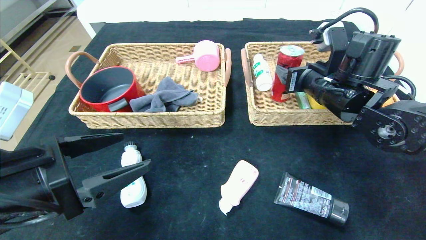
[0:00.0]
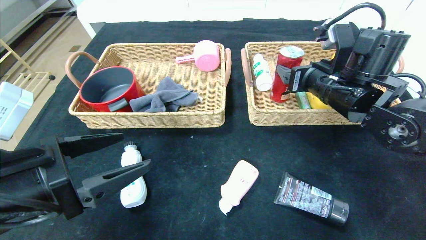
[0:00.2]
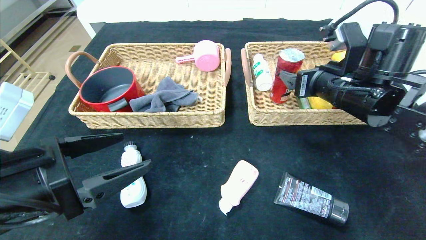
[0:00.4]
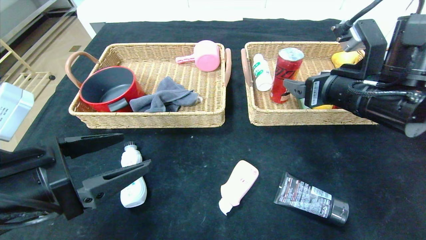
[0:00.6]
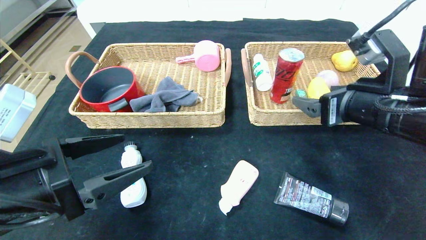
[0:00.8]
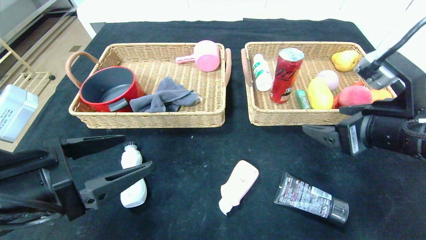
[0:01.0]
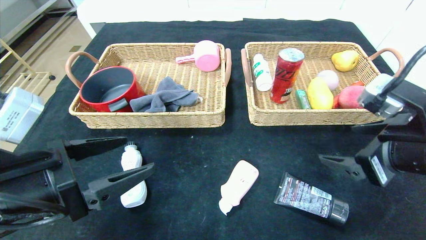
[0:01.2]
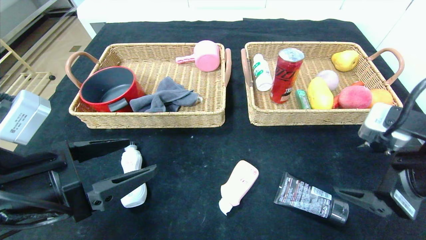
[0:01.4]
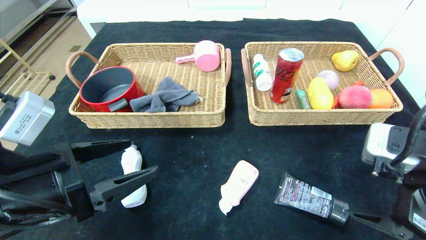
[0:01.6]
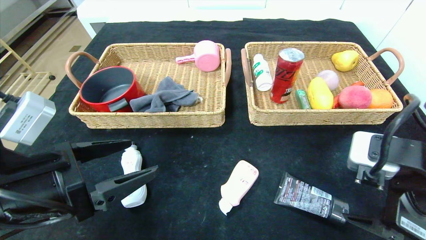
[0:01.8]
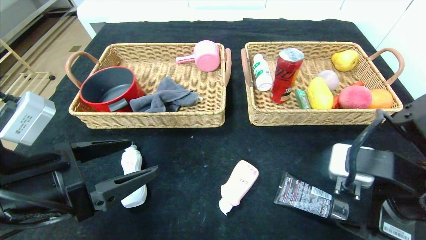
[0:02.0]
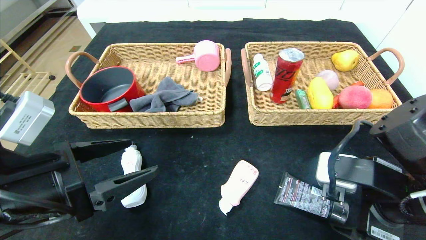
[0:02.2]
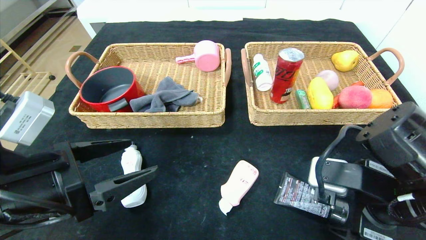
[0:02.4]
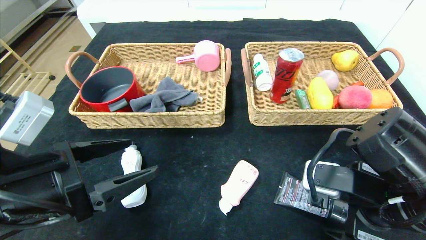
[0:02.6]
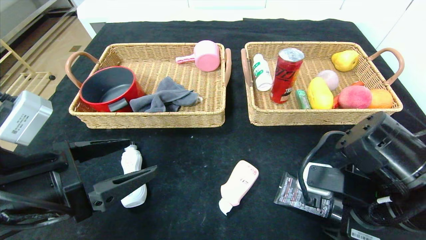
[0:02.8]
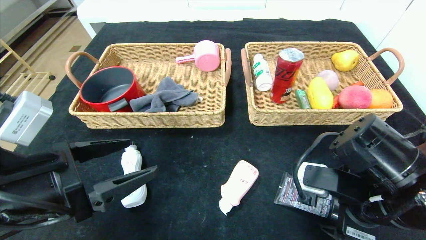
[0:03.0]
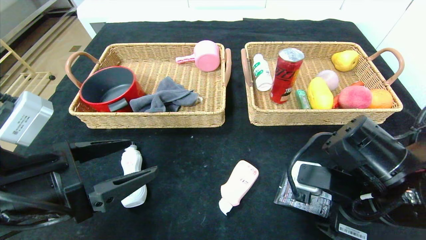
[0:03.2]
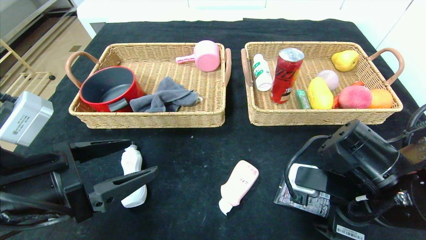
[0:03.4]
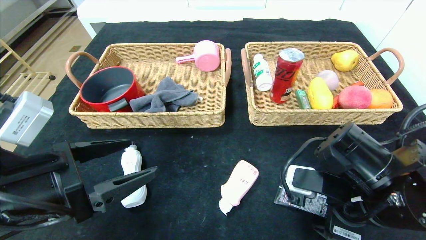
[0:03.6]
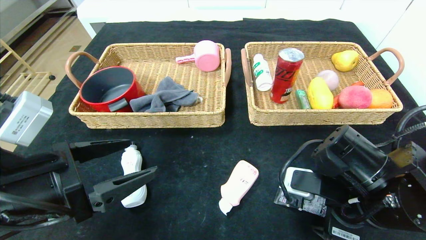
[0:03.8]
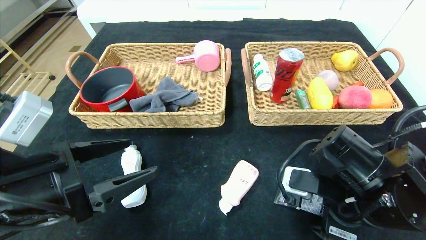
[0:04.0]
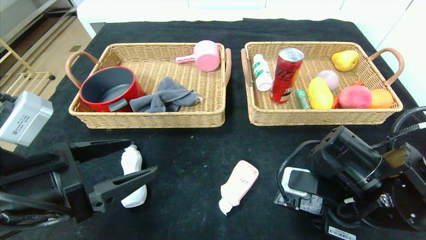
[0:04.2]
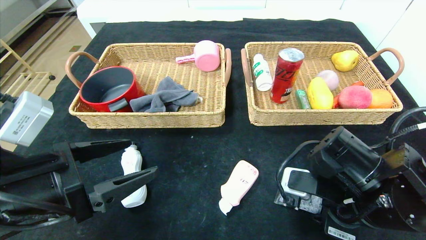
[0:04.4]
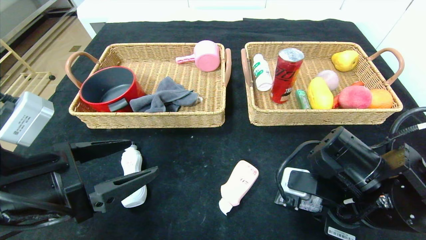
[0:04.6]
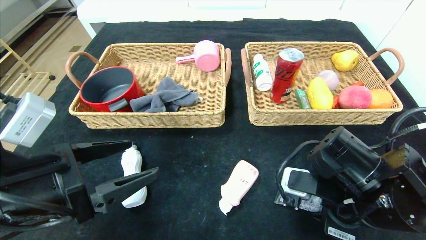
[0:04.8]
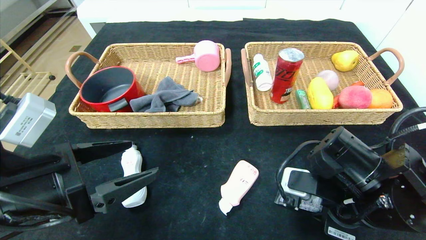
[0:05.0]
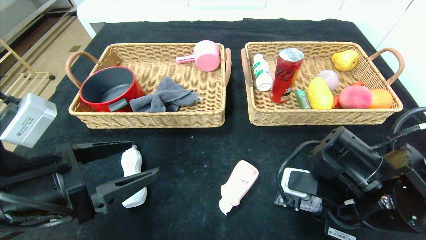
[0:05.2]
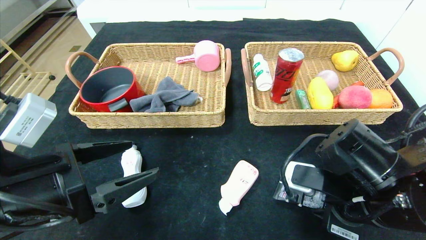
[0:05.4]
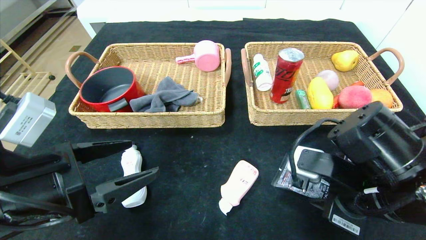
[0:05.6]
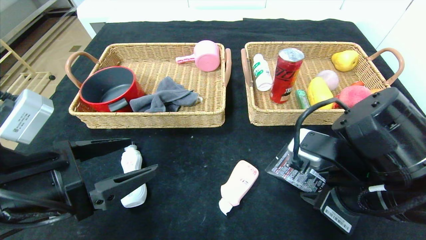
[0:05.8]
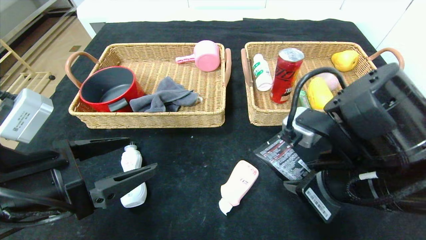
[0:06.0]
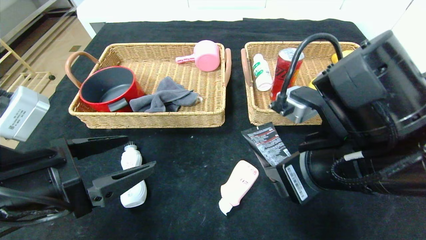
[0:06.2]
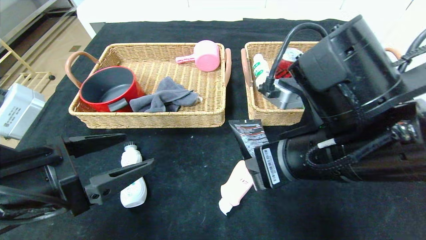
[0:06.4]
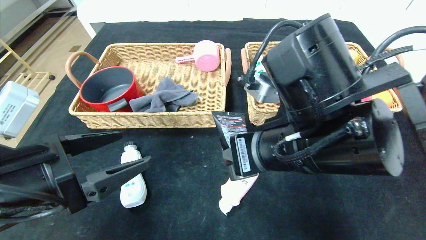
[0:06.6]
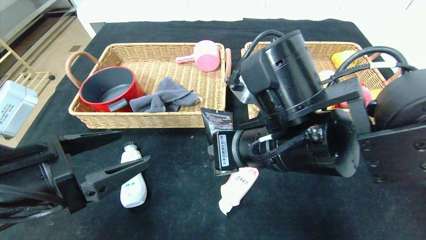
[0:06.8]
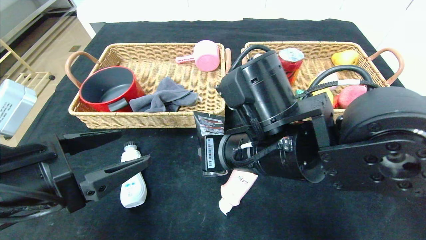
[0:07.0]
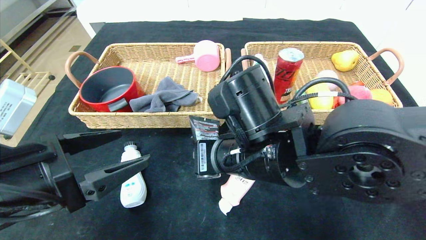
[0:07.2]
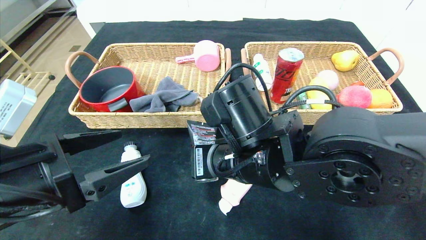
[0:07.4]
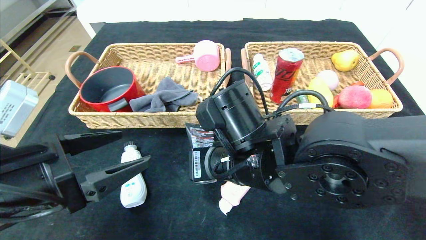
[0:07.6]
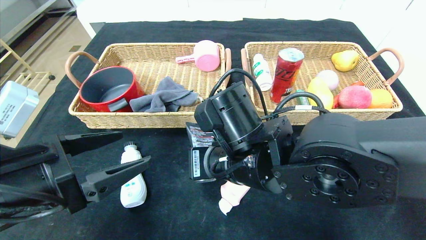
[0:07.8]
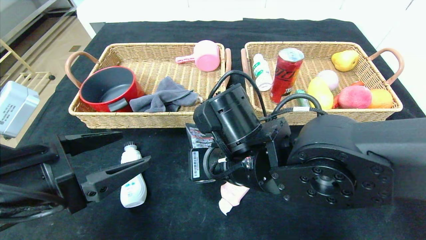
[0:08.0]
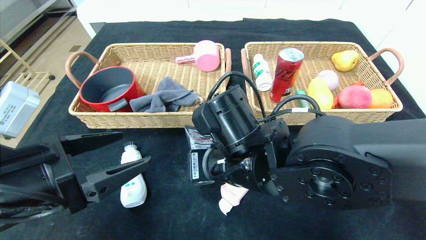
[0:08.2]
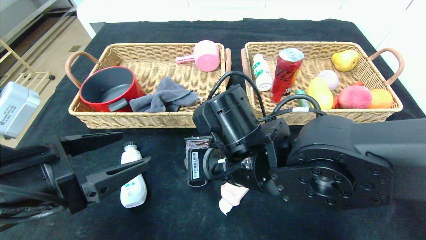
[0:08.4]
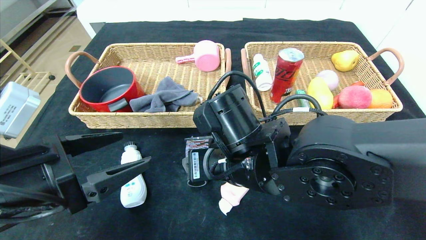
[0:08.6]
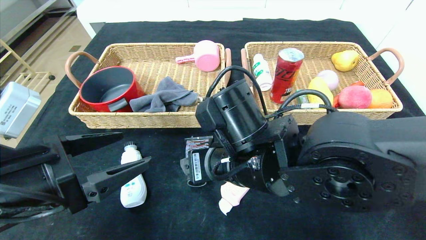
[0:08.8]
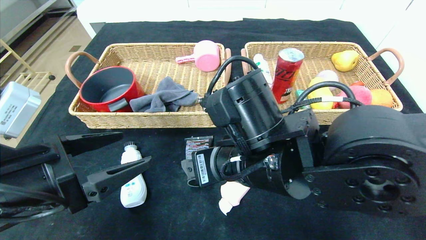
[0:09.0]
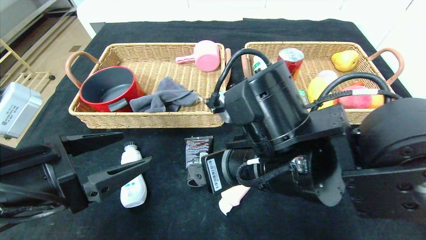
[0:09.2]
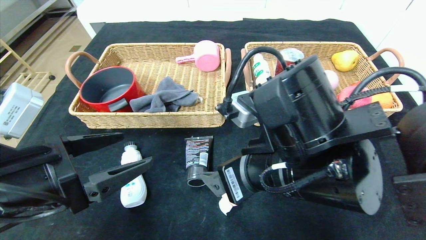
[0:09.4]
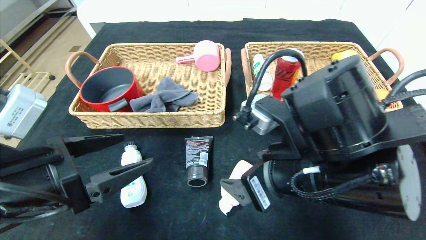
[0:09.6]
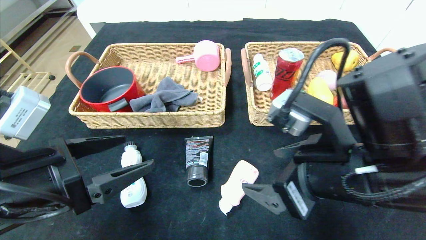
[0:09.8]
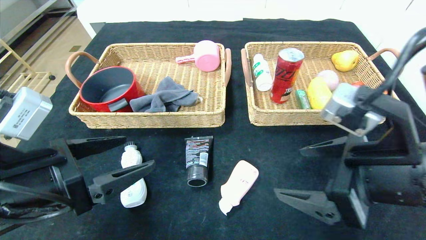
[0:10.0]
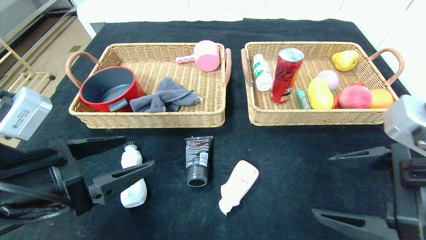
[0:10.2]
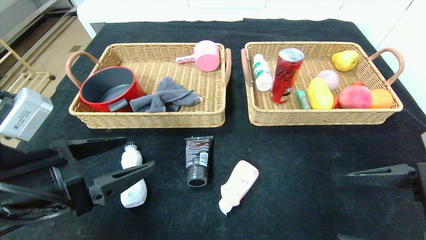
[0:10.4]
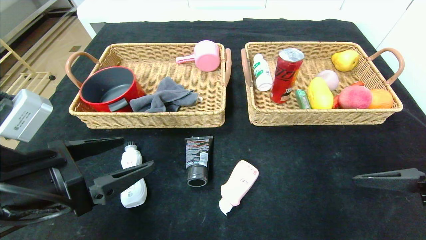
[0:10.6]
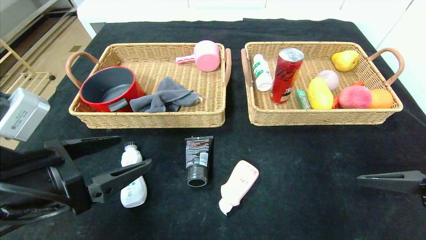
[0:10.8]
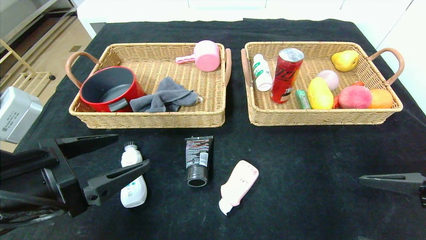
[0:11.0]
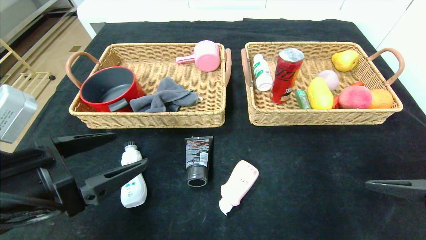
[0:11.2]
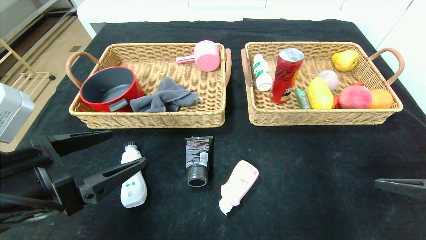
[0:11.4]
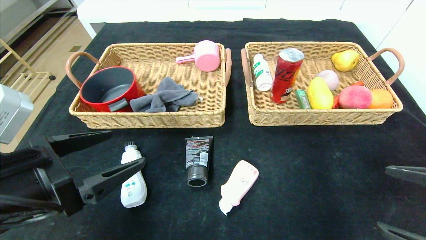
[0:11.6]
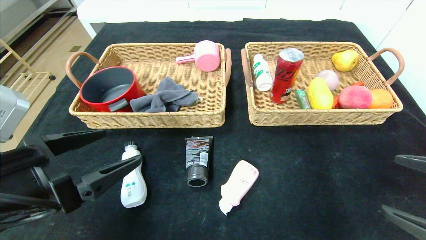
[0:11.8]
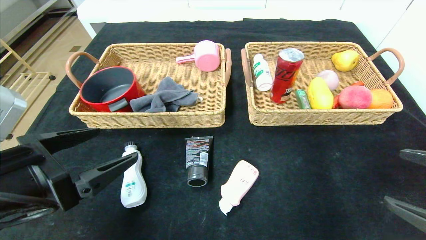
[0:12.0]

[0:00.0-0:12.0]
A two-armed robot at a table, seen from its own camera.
Step, 0:00.4 to 0:08.6: Place the soft cleanser in the center of the table.
0:00.0 to 0:01.6: The right gripper heads backward, covering about 20 cm.
0:01.6 to 0:03.0: The right gripper travels downward and to the left by about 5 cm.
0:03.0 to 0:04.4: The right gripper closes.
0:04.4 to 0:06.0: The right gripper shifts roughly 5 cm upward.
0:06.0 to 0:07.6: The right gripper travels to the left and forward by about 15 cm.
0:07.6 to 0:09.0: The right gripper opens up.
0:09.0 to 0:10.4: The right gripper is displaced to the right and backward by some 25 cm.
0:10.4 to 0:12.0: The right gripper moves to the right, about 5 cm.

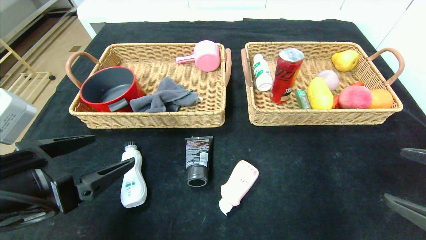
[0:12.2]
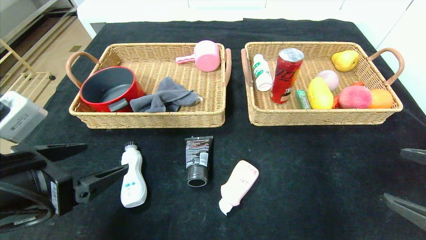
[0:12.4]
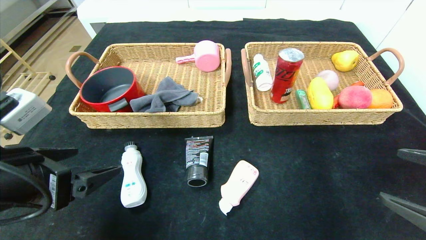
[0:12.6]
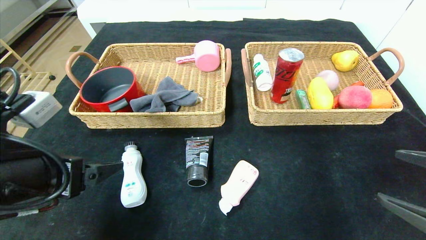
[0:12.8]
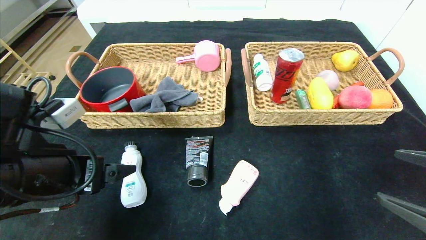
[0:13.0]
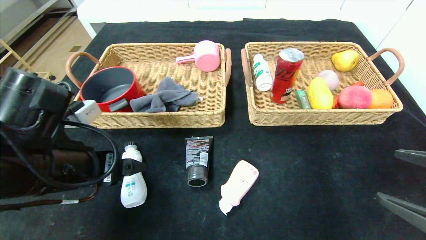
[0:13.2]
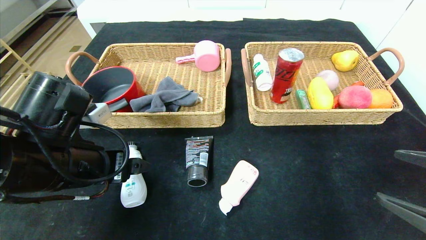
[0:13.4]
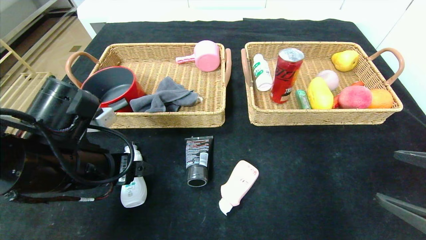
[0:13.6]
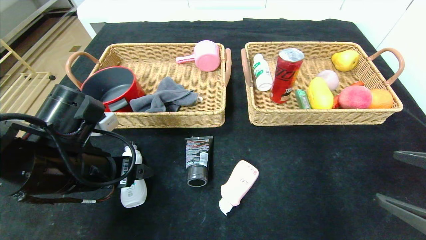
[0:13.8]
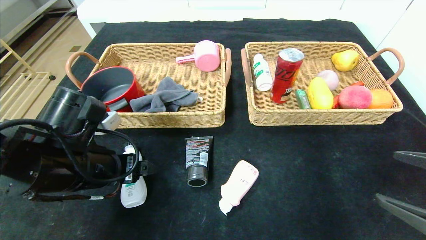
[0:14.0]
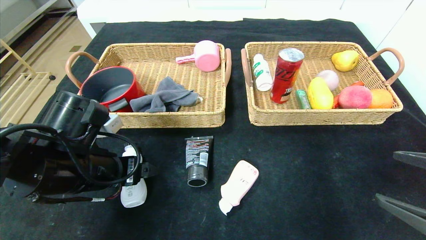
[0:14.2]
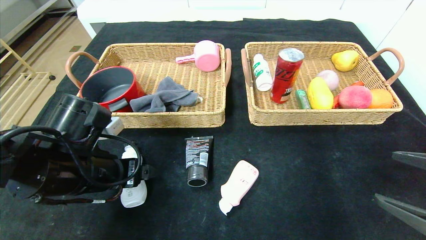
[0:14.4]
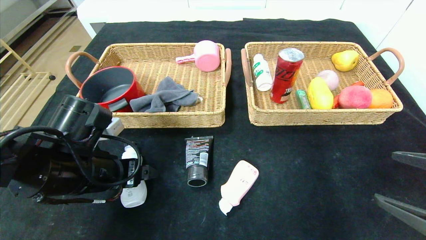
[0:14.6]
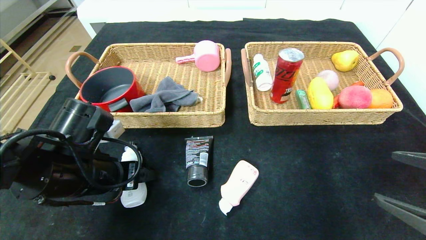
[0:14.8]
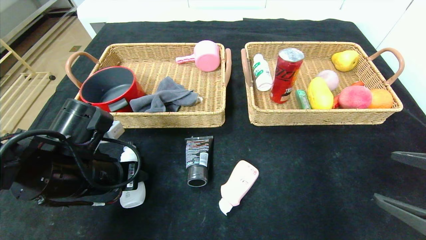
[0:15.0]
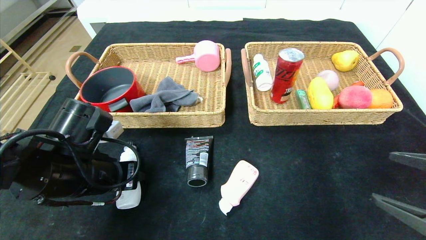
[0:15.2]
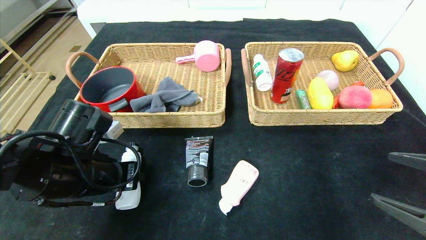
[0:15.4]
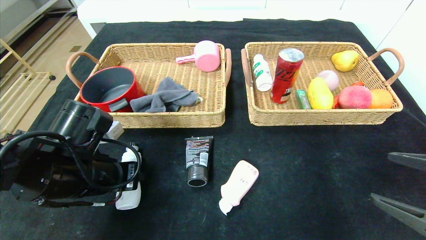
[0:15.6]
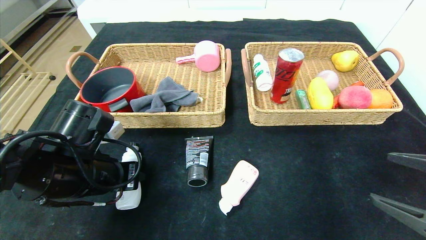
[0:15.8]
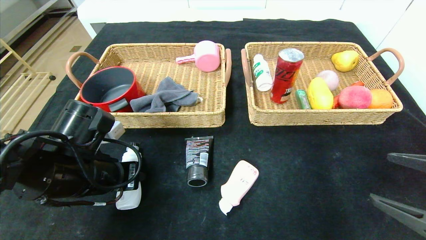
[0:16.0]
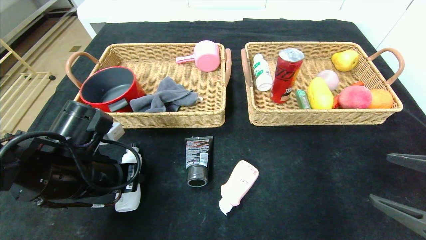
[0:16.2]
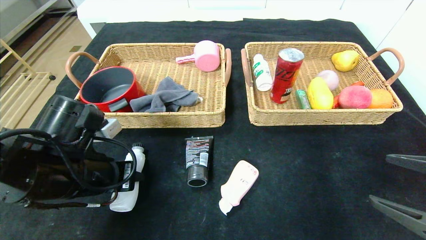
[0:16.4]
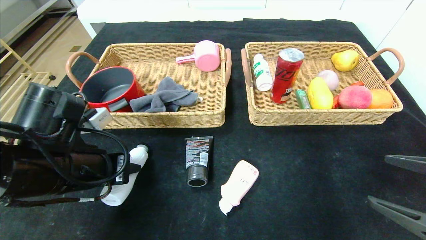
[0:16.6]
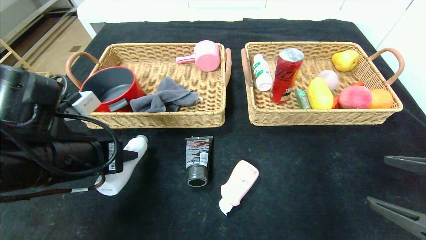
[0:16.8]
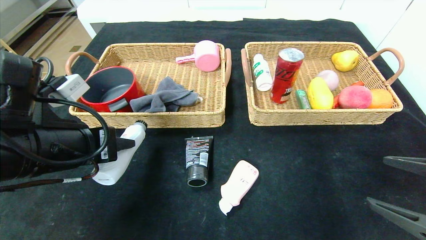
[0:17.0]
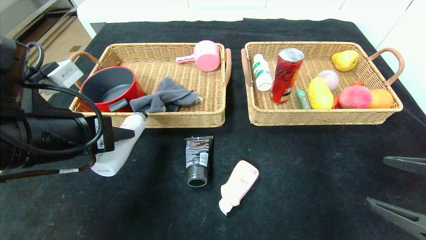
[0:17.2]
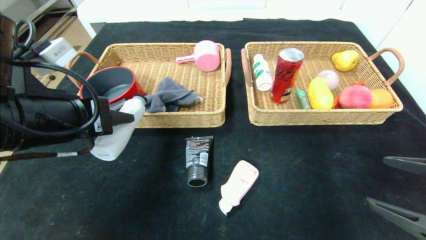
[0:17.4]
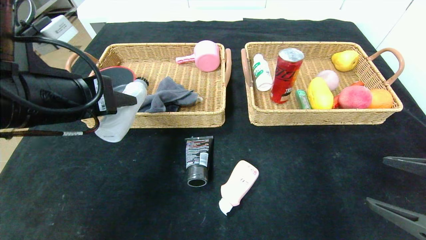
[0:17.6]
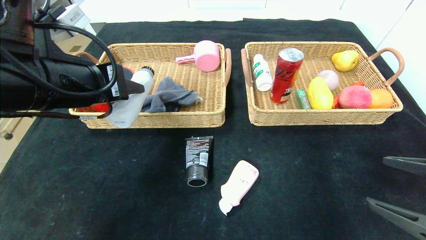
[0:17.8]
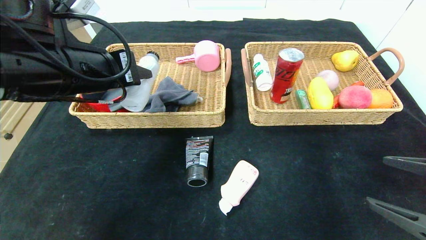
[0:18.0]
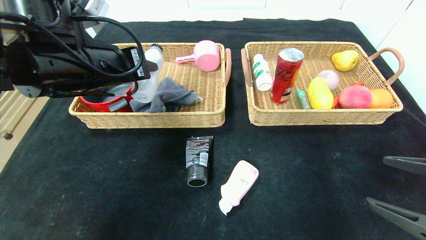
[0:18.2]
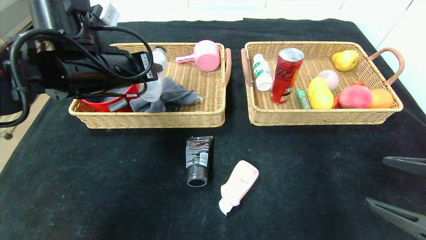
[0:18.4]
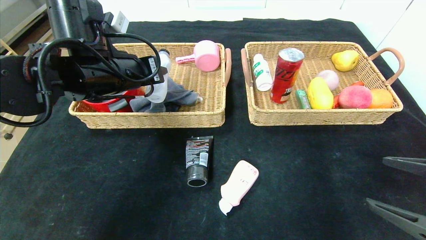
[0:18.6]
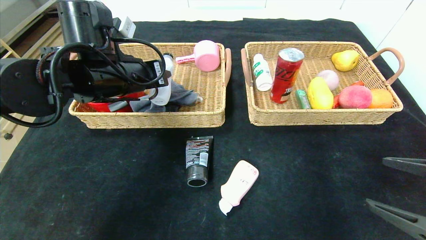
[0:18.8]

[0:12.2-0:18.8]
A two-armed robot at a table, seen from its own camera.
0:12.2 to 0:13.8: The left gripper travels forward by approximately 5 cm.
0:13.8 to 0:15.4: The left gripper closes up.
0:15.4 to 0:17.2: The left gripper travels upward by roughly 10 cm.
0:17.2 to 0:18.8: The left gripper moves forward, about 15 cm.
